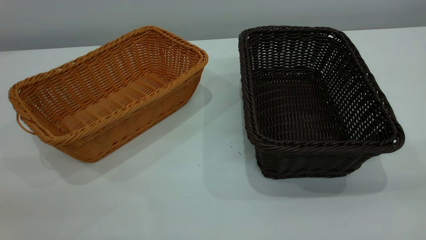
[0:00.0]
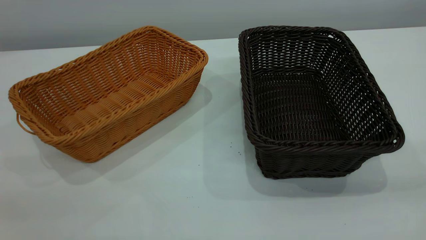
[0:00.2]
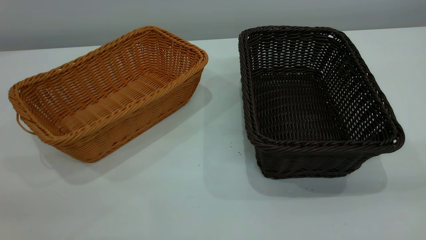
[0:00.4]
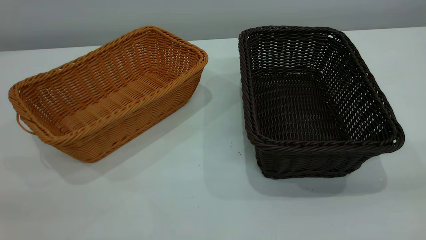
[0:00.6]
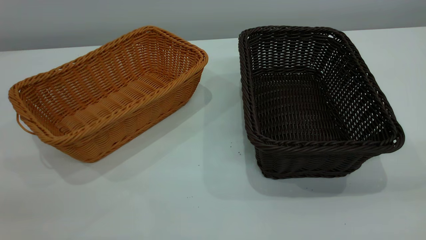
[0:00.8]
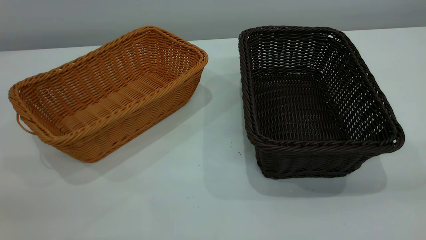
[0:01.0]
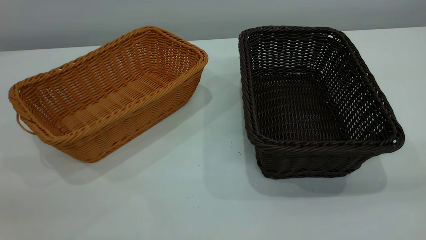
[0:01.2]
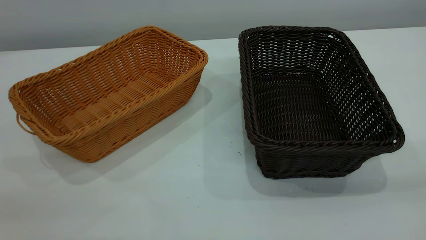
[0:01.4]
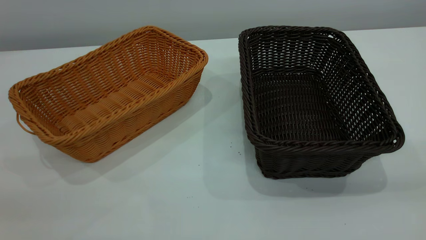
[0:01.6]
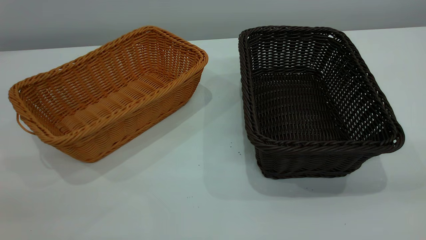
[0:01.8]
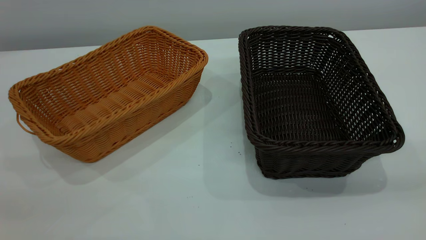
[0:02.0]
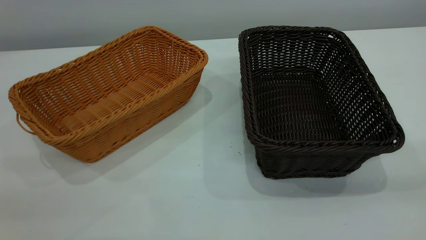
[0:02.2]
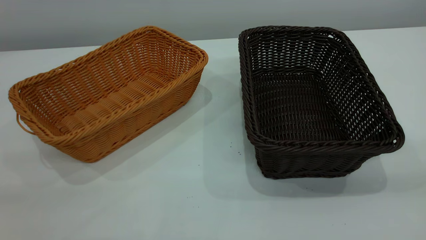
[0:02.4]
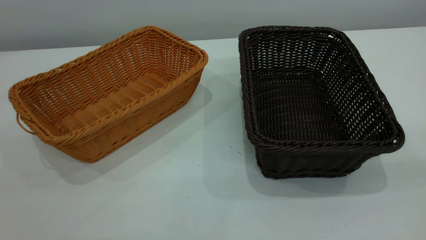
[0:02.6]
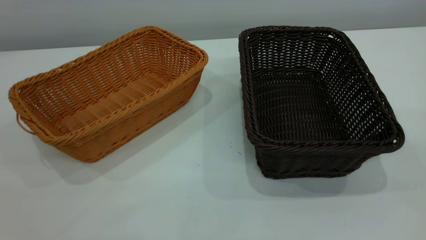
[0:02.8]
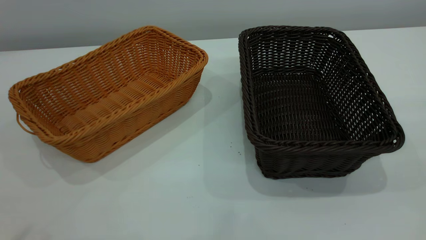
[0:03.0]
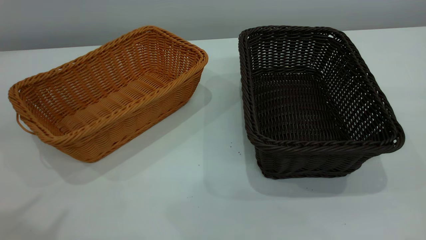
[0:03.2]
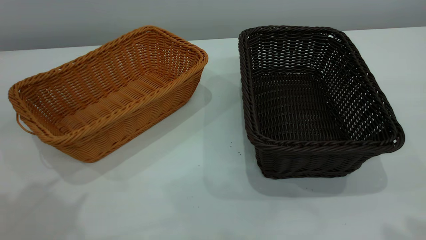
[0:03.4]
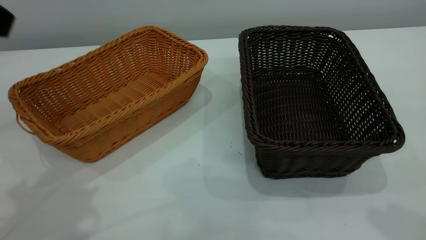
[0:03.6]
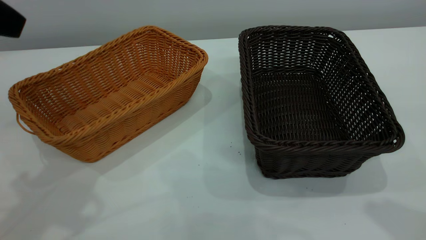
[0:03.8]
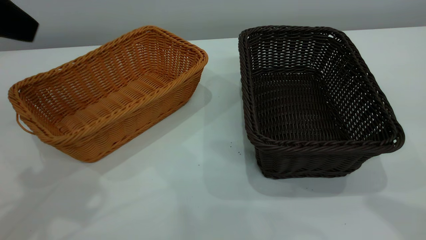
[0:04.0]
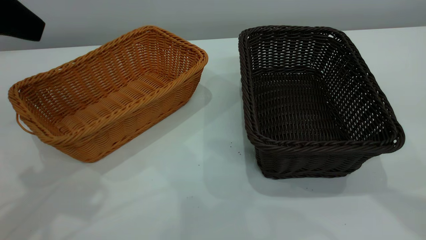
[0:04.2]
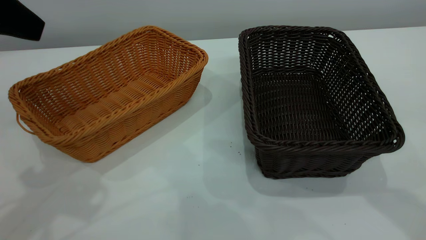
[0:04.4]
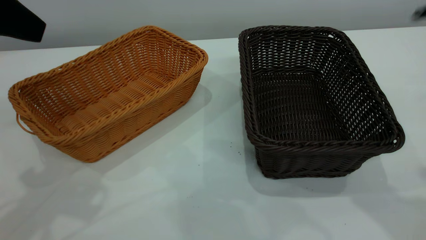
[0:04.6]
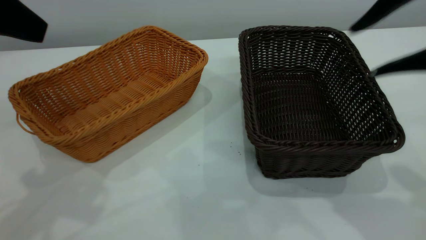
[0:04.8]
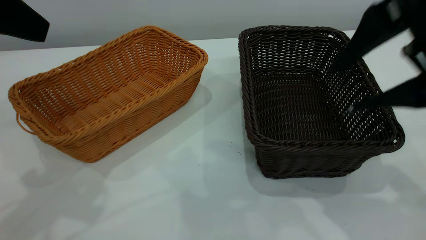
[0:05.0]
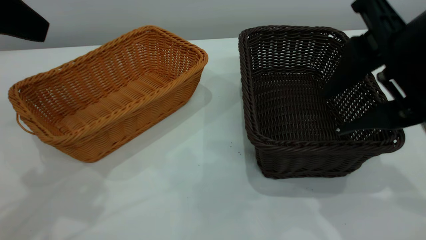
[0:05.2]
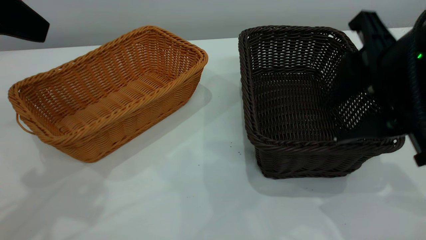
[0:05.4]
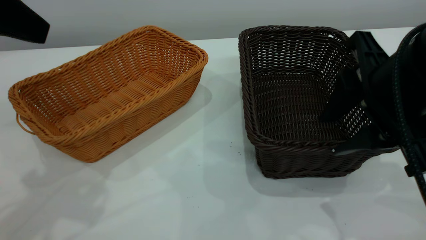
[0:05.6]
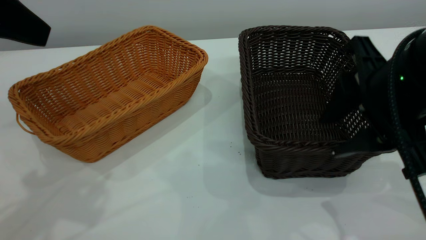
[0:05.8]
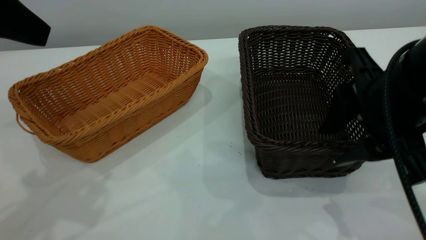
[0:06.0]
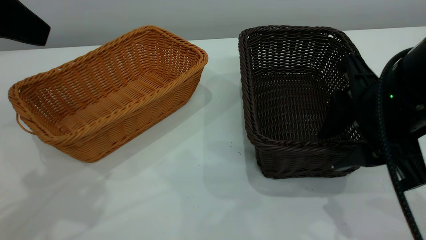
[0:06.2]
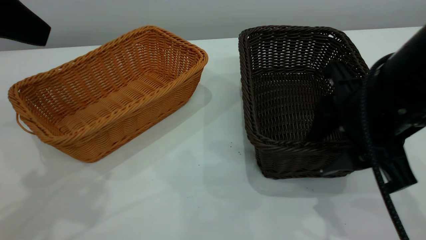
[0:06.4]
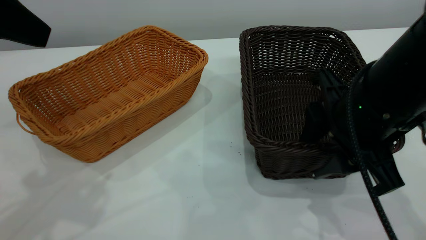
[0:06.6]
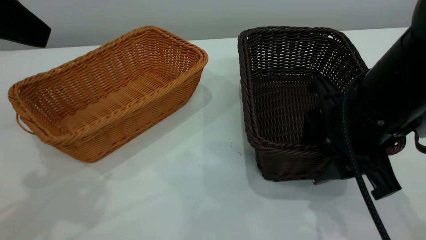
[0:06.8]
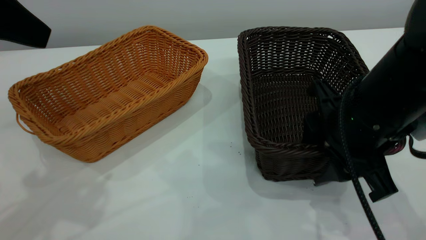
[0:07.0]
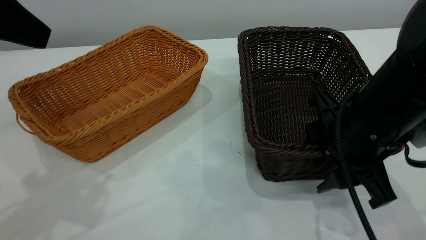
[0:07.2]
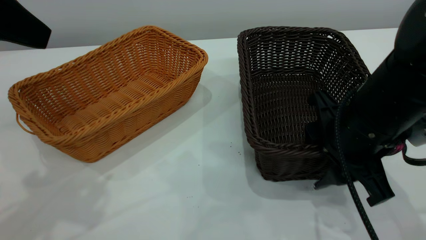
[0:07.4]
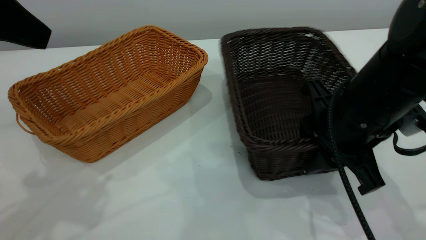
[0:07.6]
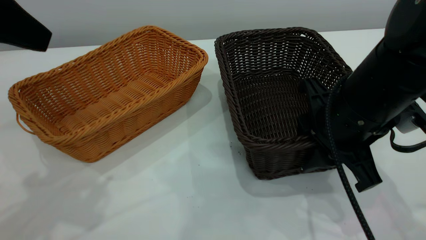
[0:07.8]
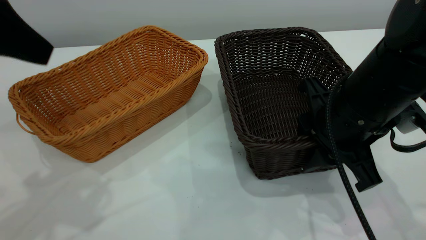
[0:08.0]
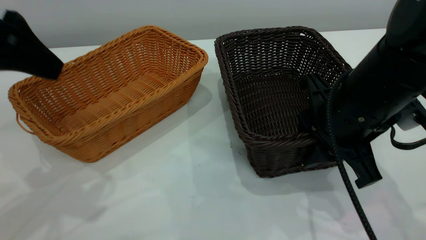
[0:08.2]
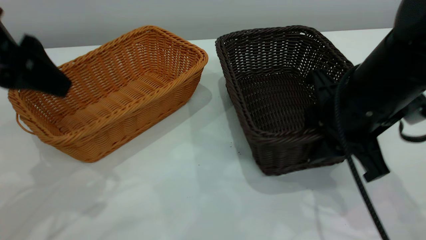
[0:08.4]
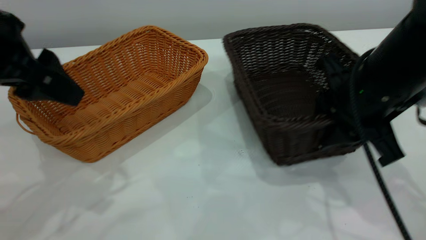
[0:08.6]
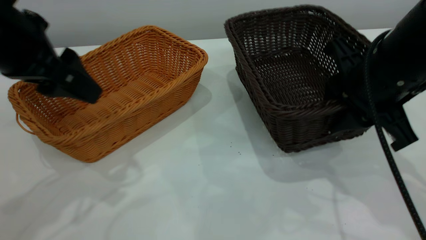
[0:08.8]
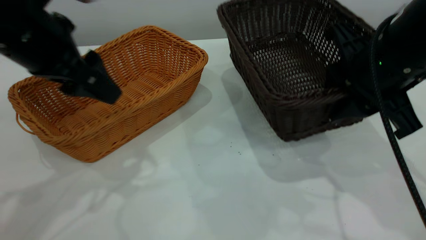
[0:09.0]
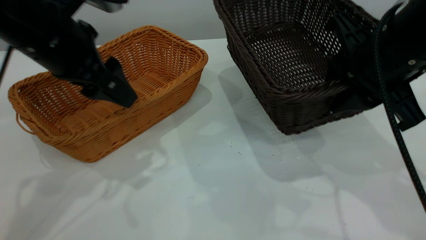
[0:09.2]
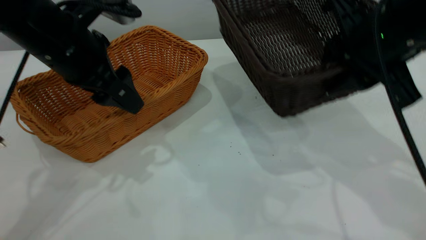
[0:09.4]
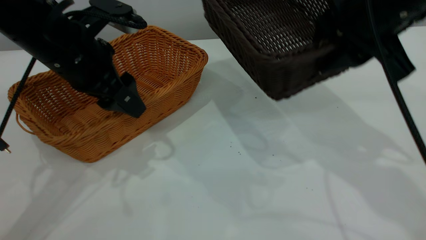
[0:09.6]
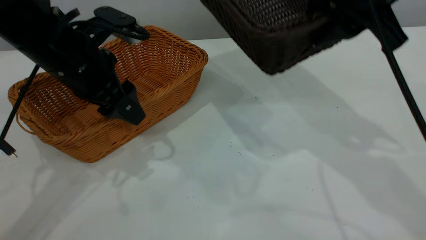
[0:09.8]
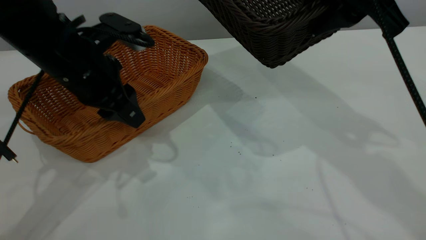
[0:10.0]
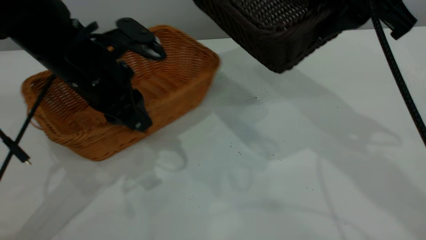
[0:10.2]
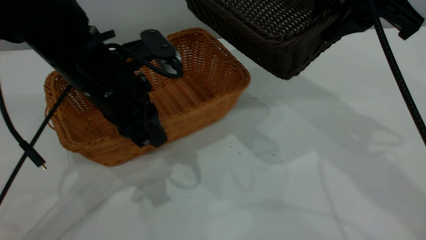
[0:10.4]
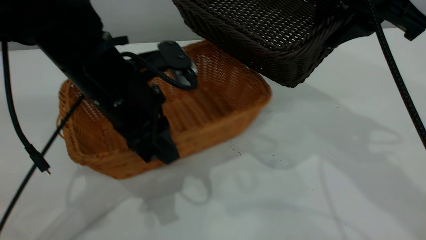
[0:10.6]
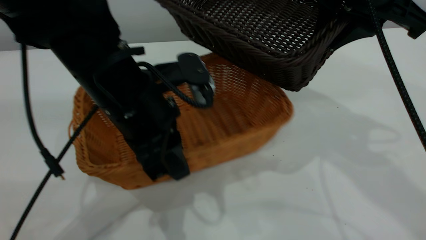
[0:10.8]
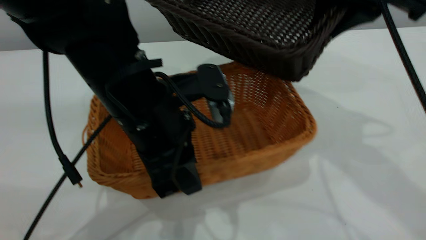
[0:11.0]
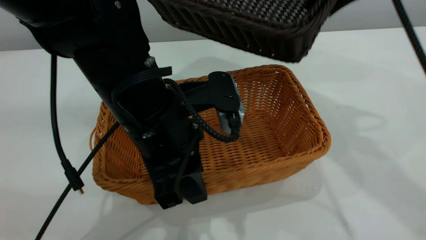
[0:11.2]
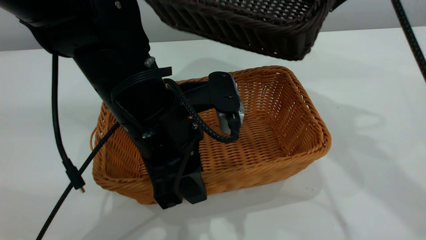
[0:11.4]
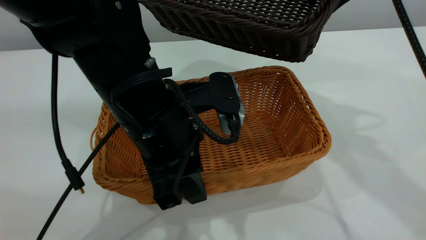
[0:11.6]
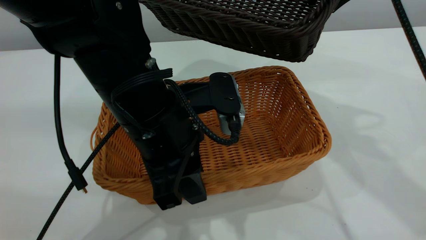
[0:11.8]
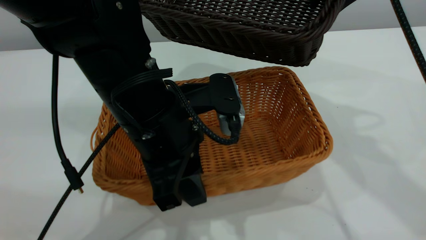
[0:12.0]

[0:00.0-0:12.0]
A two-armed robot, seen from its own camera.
Task of the whole recording: the left gripper grasp the brown basket and place it in the center of the table, the right gripper grasp the black basket and place it inside the brown one.
Step, 0:00.0 to 0:09.2: Pick up the light basket with the right gripper.
0:00.0 to 0:01.6: The two grippers keep their place.
0:03.0 to 0:04.4: The left gripper travels forward and downward by roughly 15 cm.
0:04.4 to 0:06.0: The right gripper moves downward and to the left, roughly 15 cm.
0:06.0 to 0:07.6: The right gripper changes place by some 5 cm.
0:07.6 to 0:09.0: The right gripper heads upward, covering about 5 cm; the left gripper heads downward and forward, covering roughly 10 cm.
0:09.0 to 0:10.4: The right gripper shifts some 5 cm upward, while the left gripper is displaced downward and to the right by approximately 10 cm, and closes.
0:10.4 to 0:12.0: The left gripper moves backward and to the right, some 10 cm.

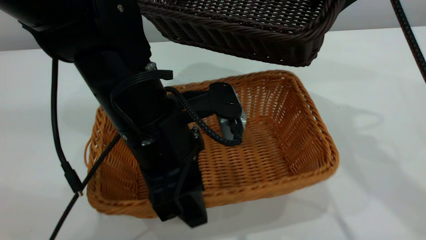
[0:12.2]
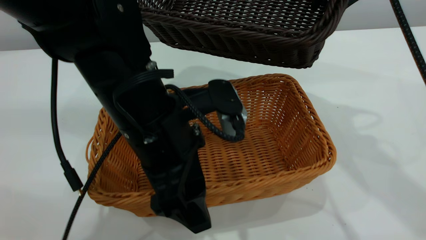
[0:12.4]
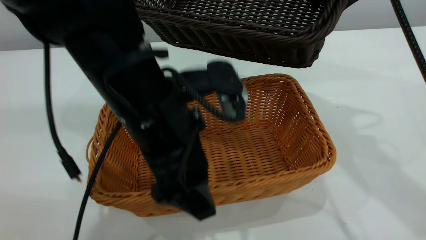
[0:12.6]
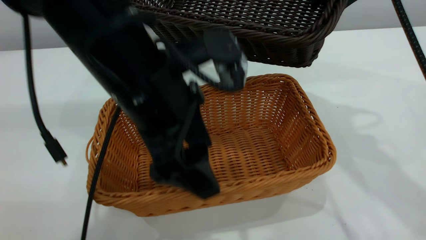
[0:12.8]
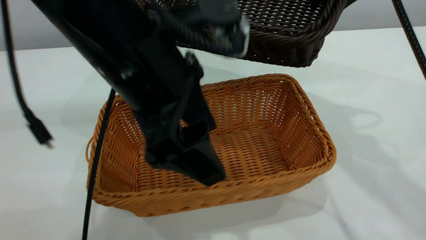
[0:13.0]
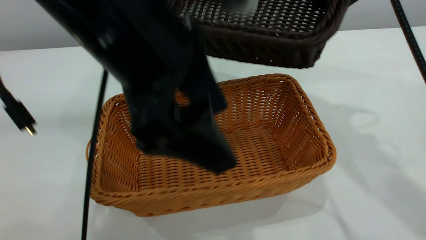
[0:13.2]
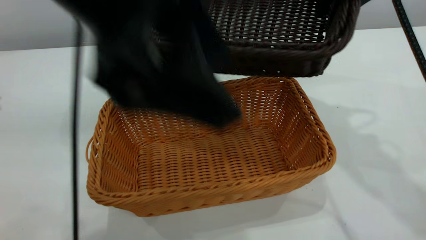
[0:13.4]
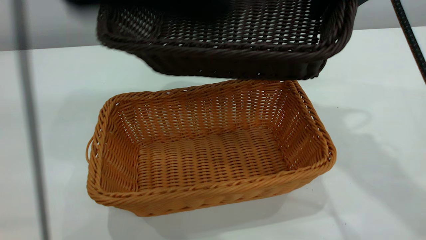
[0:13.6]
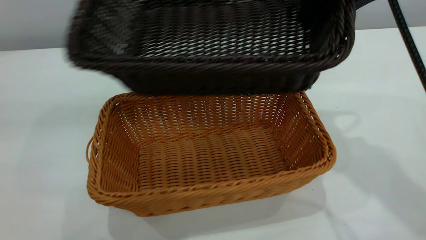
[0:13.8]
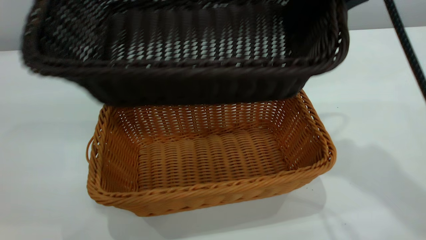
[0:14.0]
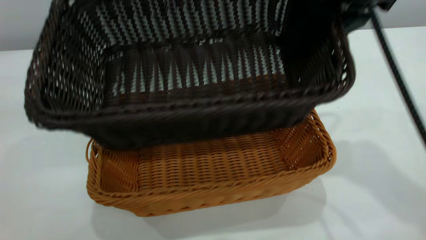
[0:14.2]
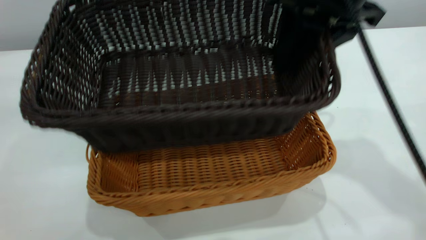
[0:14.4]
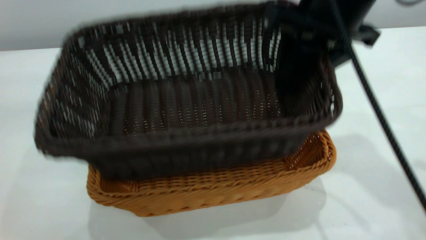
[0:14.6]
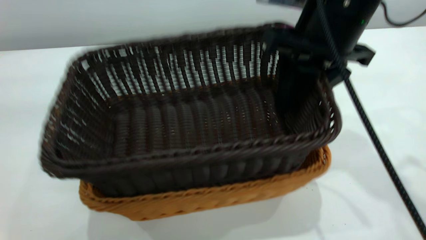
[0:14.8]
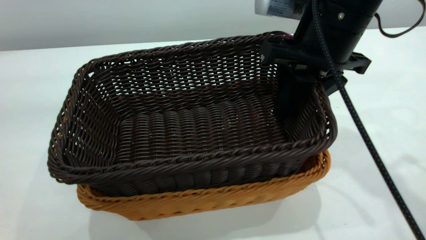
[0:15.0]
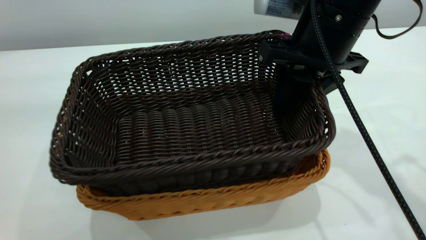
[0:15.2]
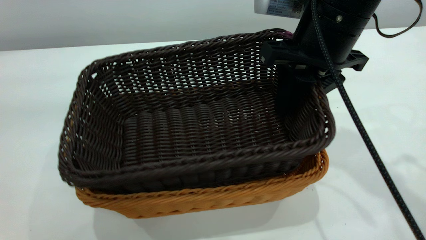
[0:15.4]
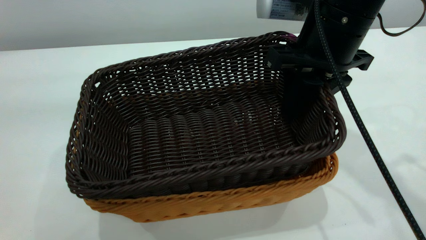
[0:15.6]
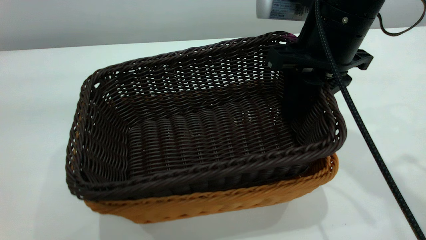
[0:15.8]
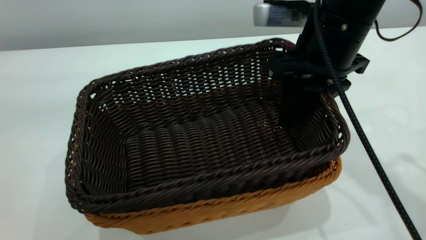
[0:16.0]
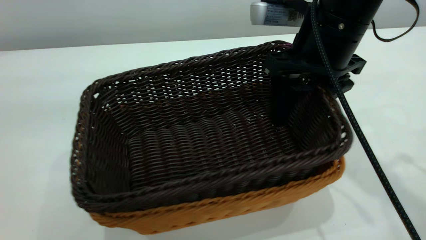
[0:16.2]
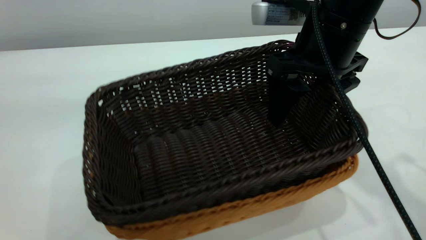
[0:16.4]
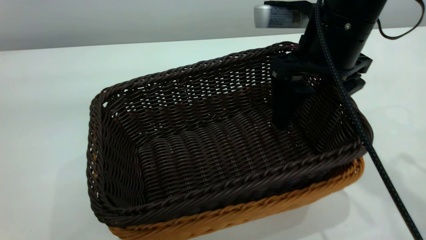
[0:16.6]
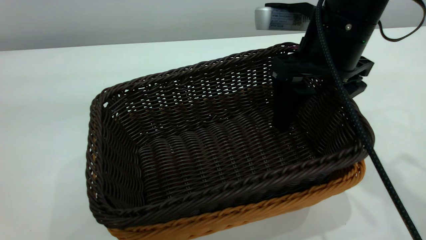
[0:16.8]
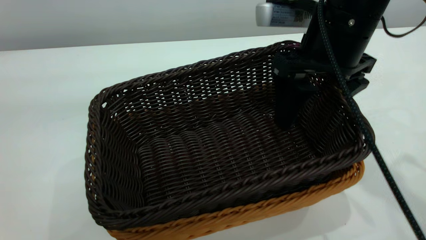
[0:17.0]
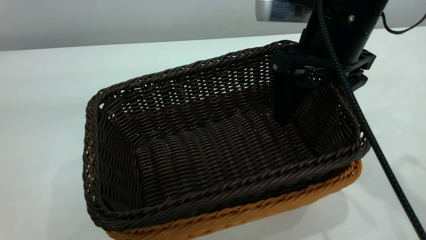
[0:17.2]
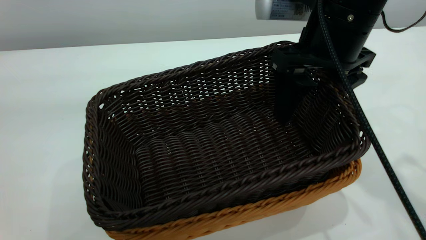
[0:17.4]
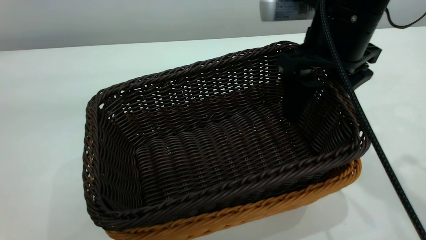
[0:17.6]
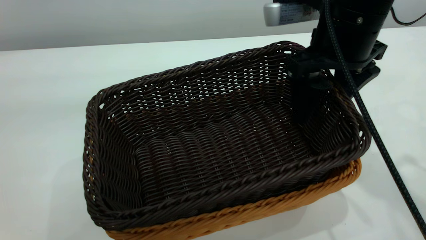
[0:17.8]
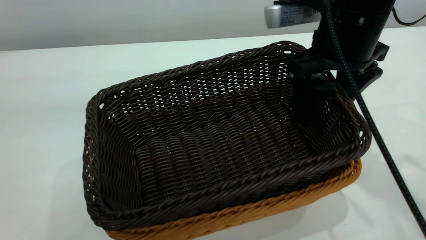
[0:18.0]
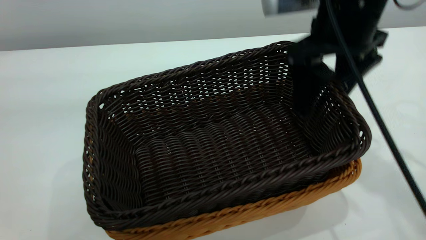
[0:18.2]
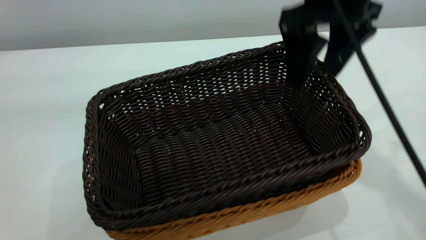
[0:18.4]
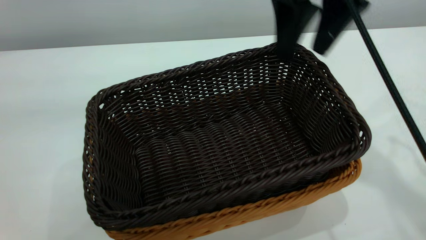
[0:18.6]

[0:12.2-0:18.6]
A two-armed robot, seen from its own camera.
Task of the whole recording: the left gripper grasp the brown basket and place it in the center of the table, the right gripper grasp the black basket and place it inside the brown one.
Step, 0:13.2 to 0:18.4: Place the dark basket on top of the light basket.
0:12.2 to 0:13.8: The left gripper shifts some 30 cm upward, and opens its fingers.
0:13.8 to 0:15.4: The right gripper goes about 10 cm downward.
0:15.4 to 0:17.0: The right gripper opens up.
0:17.0 to 0:18.6: The right gripper goes about 10 cm upward.
